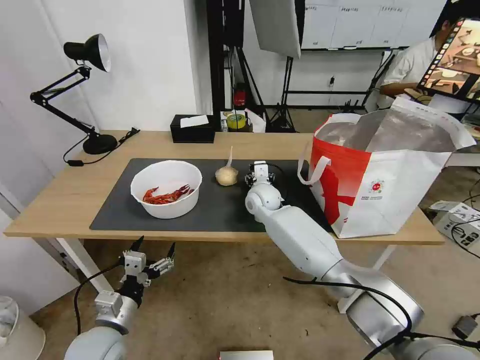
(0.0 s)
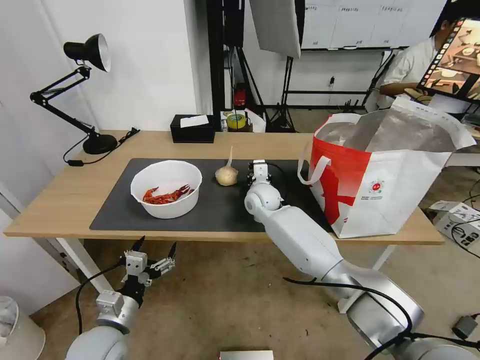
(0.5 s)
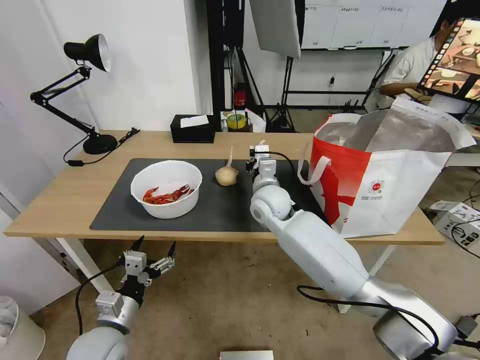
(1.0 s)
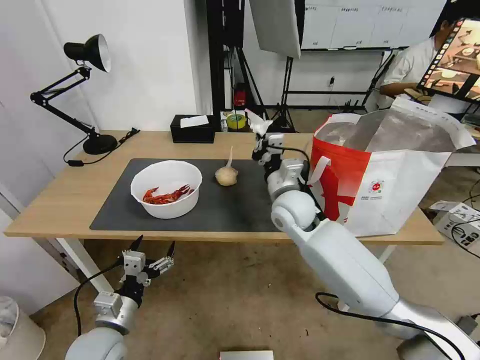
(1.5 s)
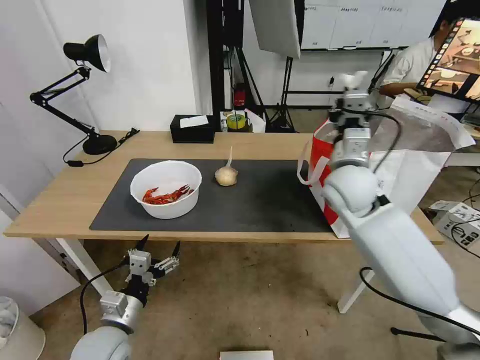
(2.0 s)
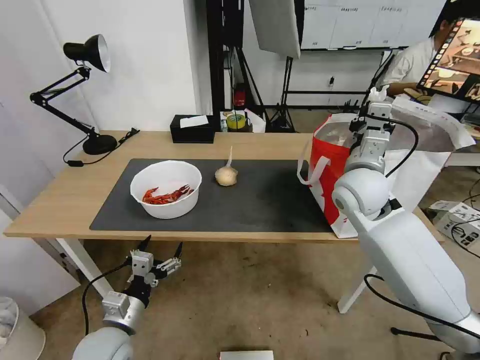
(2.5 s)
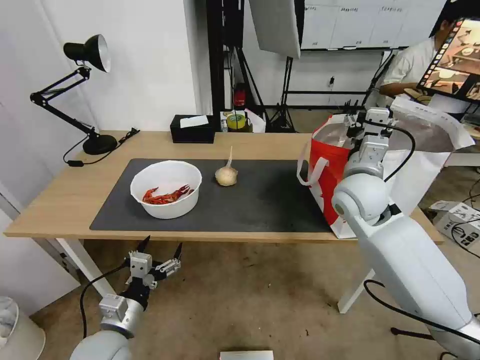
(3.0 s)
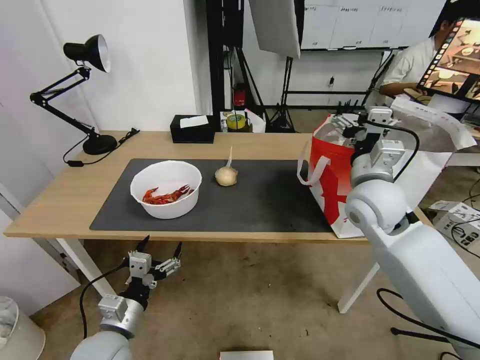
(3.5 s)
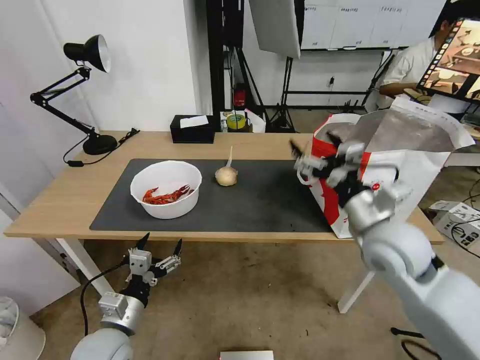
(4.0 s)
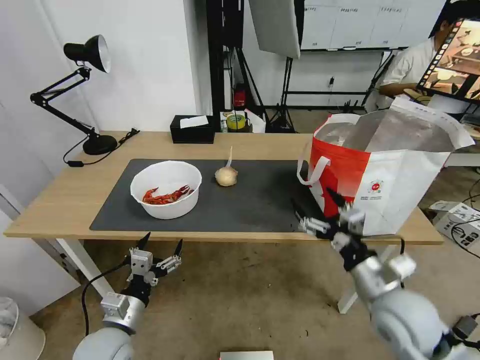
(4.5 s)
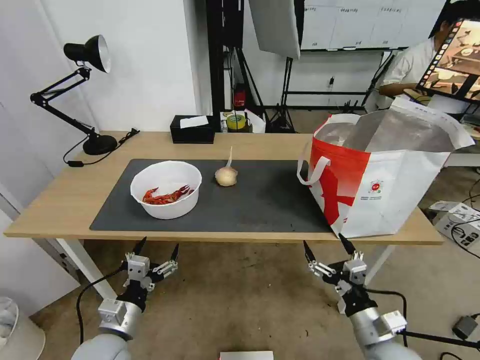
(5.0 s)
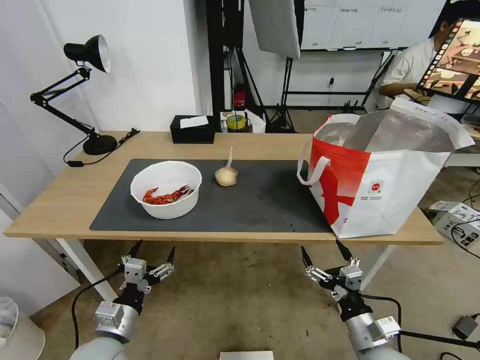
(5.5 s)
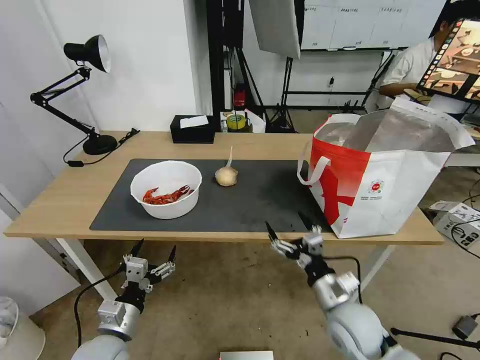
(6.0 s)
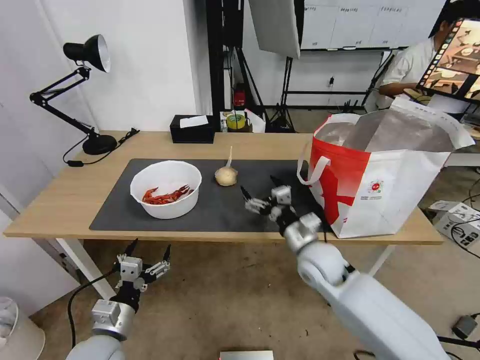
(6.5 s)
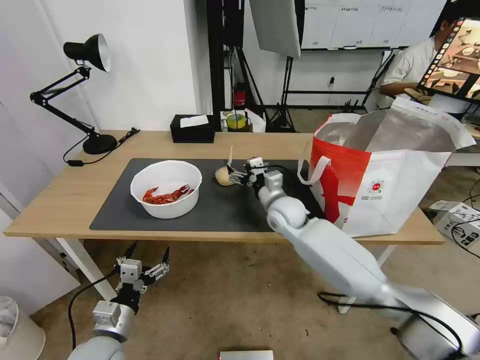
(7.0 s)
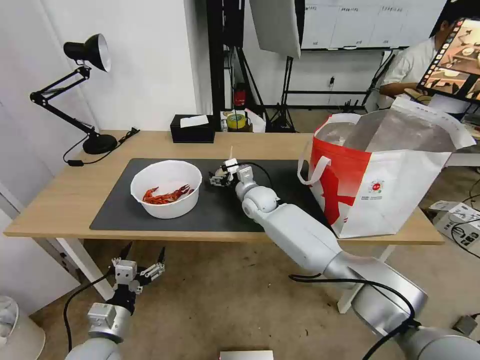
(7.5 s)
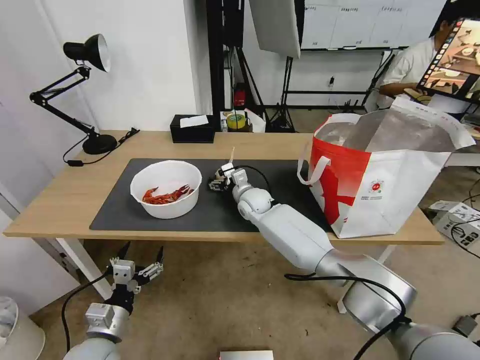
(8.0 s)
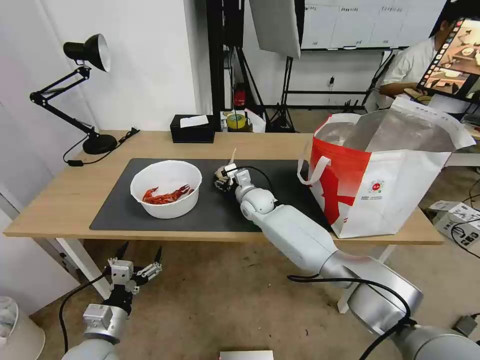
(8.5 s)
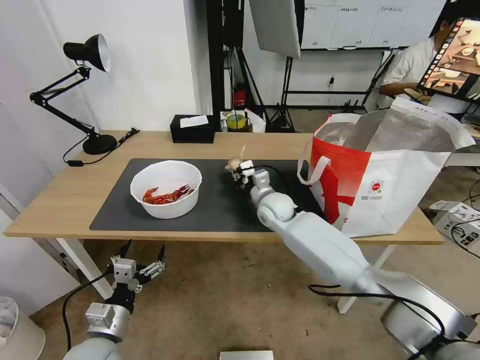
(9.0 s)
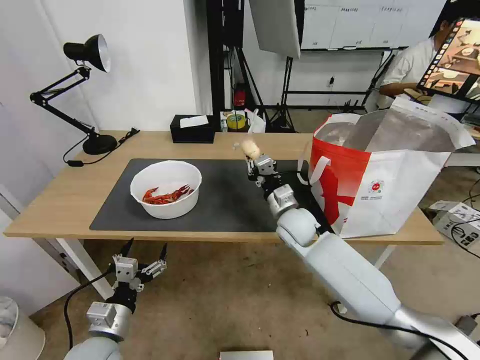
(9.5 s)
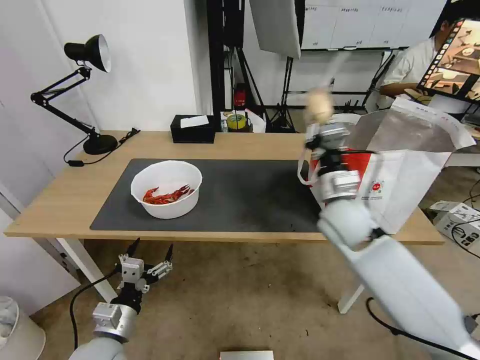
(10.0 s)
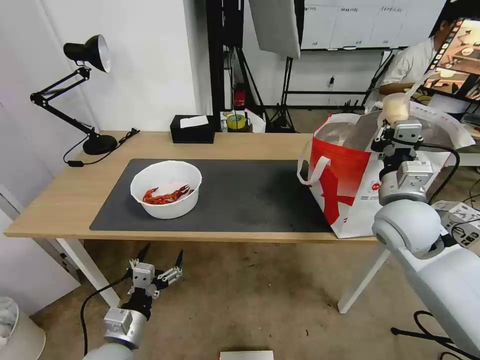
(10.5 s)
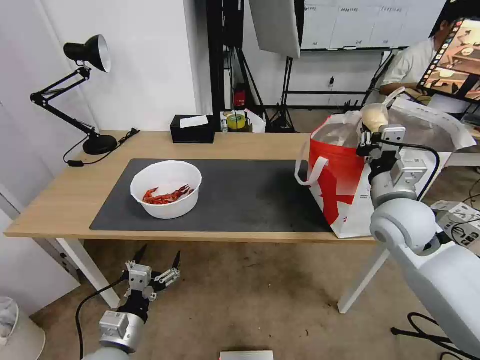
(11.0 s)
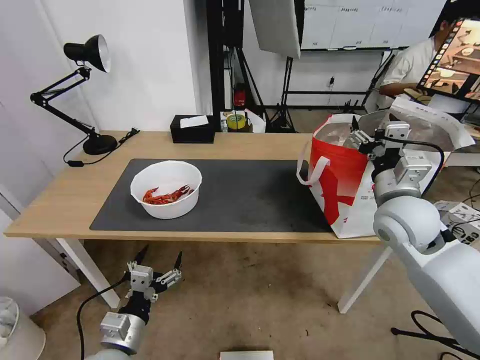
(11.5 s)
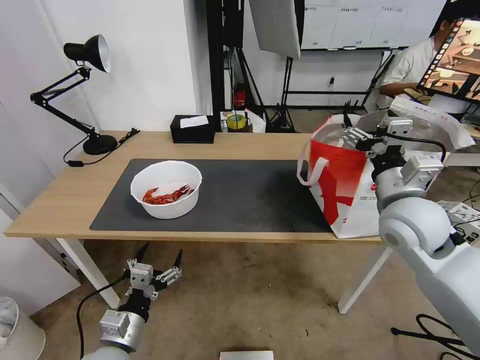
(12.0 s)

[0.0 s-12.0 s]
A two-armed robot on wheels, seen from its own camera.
Task of the whole recording: Pick up the trash from the table and place it into the takeout bag.
0.0 to 2.0 s: The right gripper shifts approximately 25 cm upward, to the right and backward, and closes.
2.0 to 4.0 s: The right gripper travels backward by roughly 10 cm, and opens up.
4.0 to 6.0 s: The right gripper is displaced downward and backward by roughly 20 cm.
6.0 to 8.0 s: The right gripper travels forward and to the left by roughly 40 cm.
8.0 to 10.0 s: The right gripper goes approximately 25 cm to the right, backward and upward, and closes.
10.0 to 12.0 s: The right gripper travels to the right by approximately 10 cm, and opens its fingers.

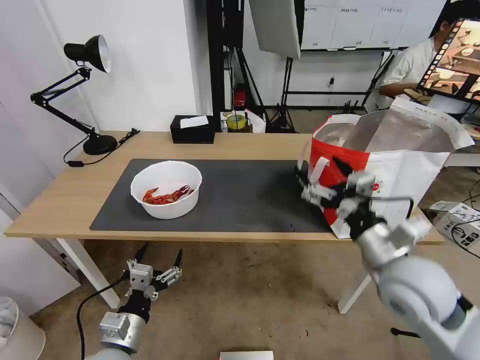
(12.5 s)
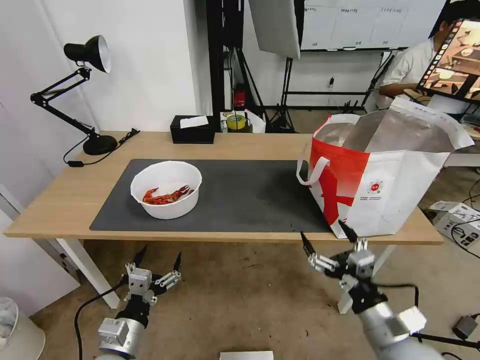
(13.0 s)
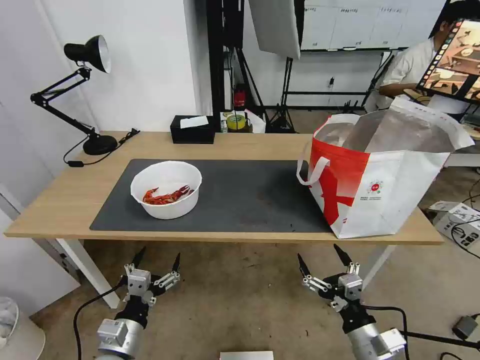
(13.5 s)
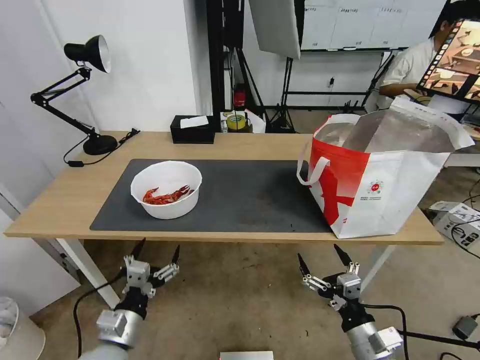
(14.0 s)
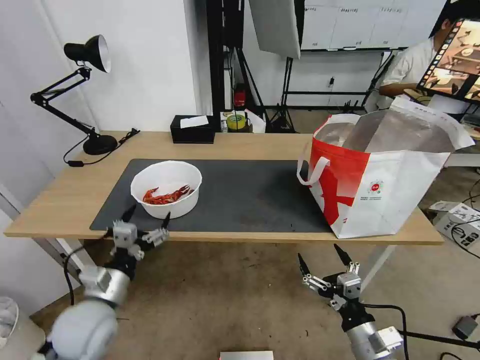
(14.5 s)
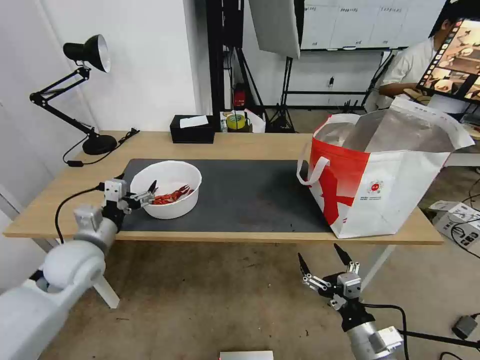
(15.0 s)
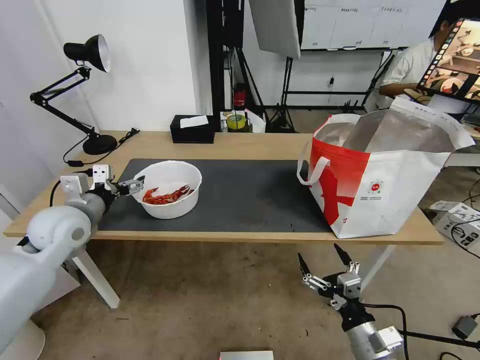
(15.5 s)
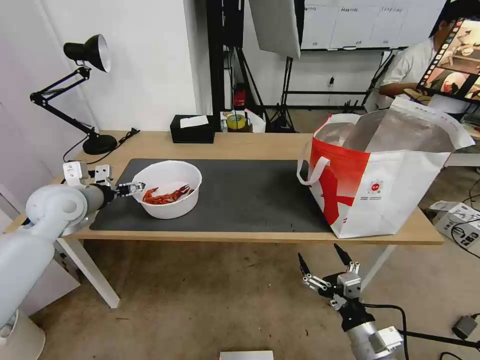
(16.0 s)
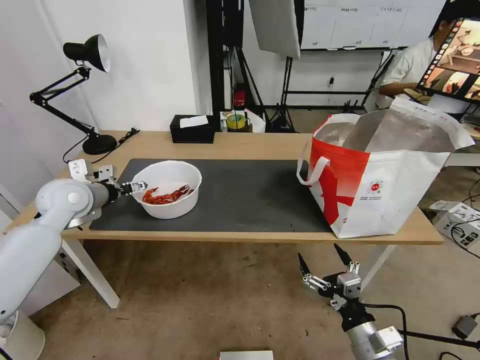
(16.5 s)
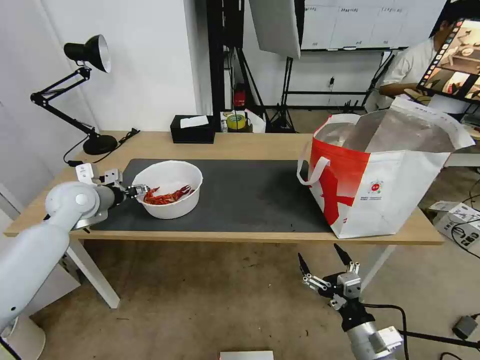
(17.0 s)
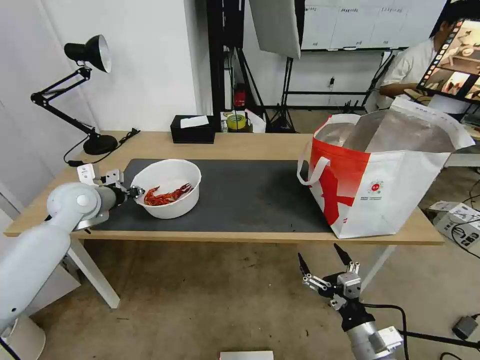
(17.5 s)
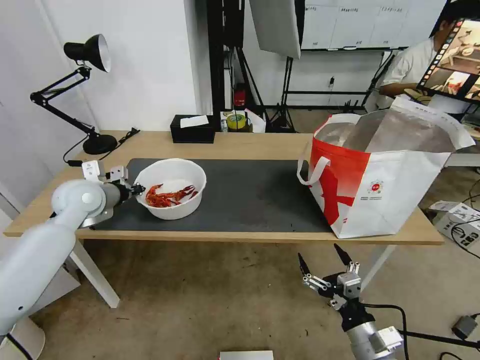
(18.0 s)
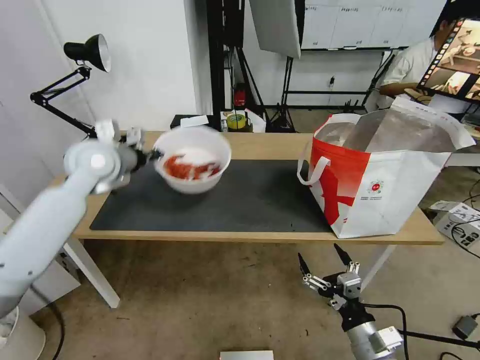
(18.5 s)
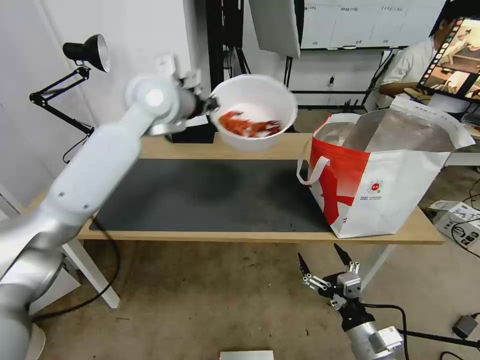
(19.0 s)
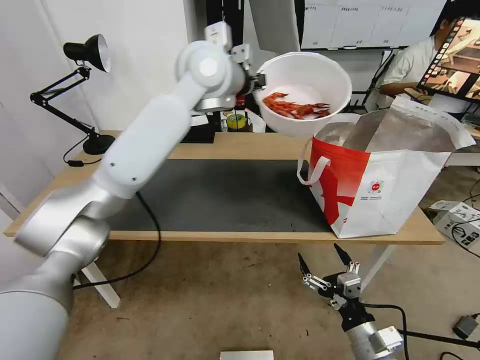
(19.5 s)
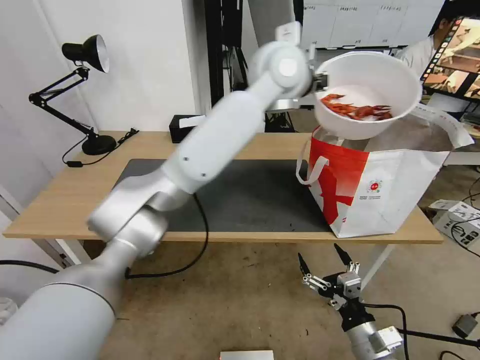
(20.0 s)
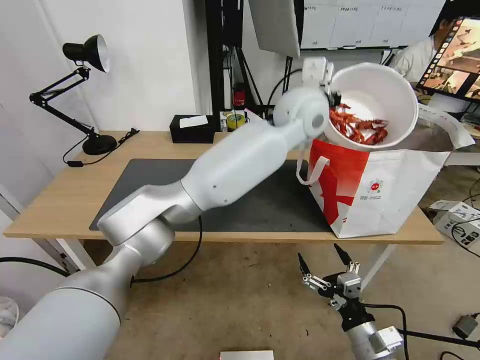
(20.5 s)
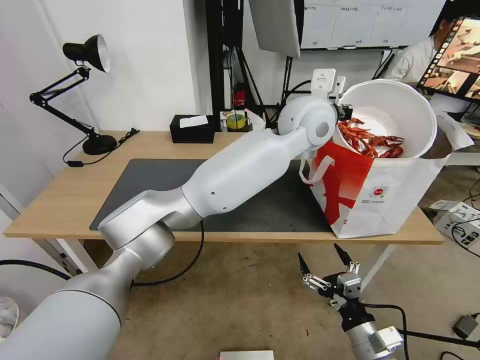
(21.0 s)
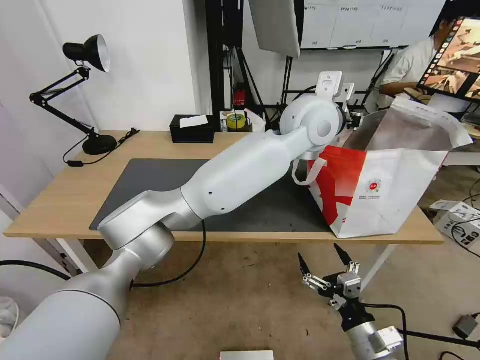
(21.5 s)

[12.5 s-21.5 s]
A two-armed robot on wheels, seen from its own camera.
Task of the whole recording: Pick up the trash from the table and place it into the takeout bag.
12.5 to 14.5 s: The right gripper heads downward and backward, covering approximately 20 cm. The left gripper goes roughly 10 cm forward and upward.
14.5 to 17.0 s: The left gripper moves forward and upward, some 25 cm.
17.0 to 19.5 s: The left gripper heads to the right and upward, covering some 40 cm, and closes.
19.5 to 21.5 s: The left gripper travels to the right by about 20 cm, and opens up.

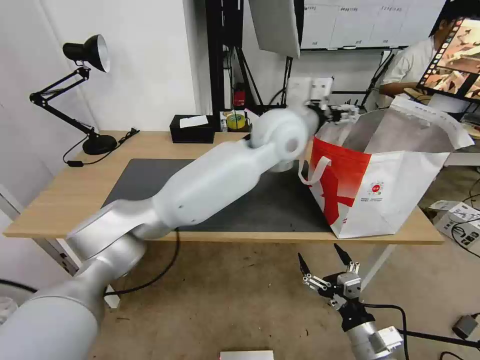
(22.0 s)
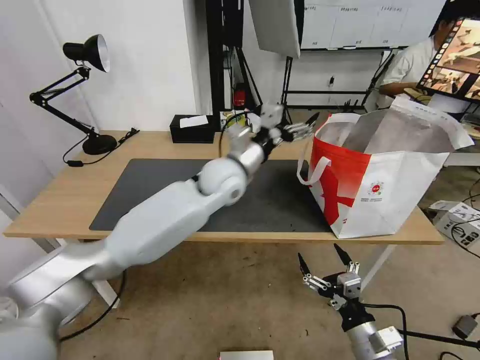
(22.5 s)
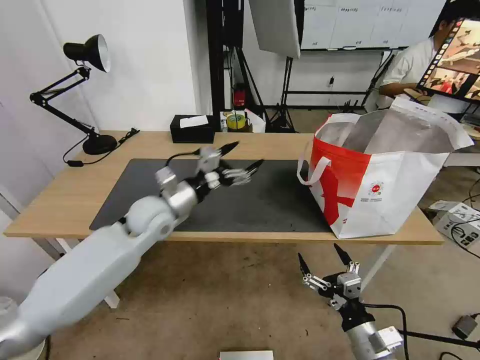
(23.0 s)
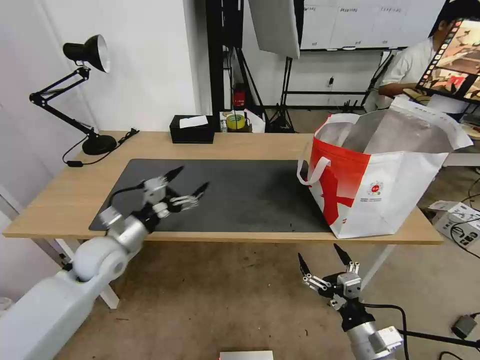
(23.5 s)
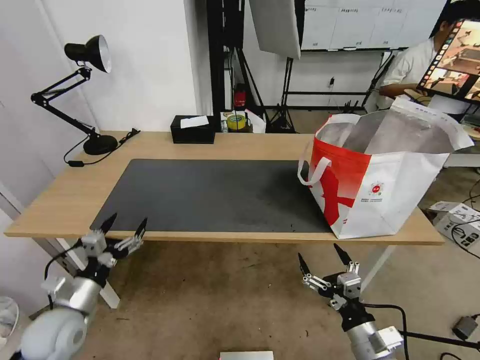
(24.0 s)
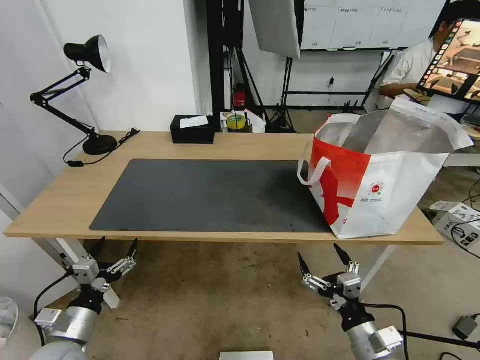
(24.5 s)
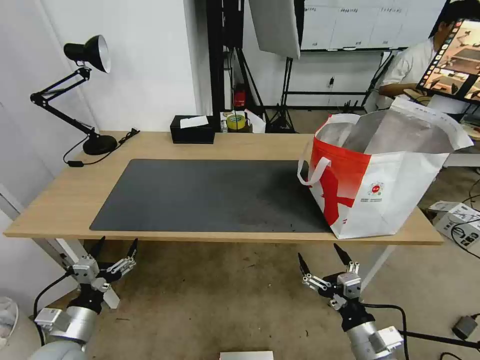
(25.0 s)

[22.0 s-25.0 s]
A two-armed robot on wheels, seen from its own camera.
Task of the whole recording: Pick up the trash from the table and place it into the takeout bag.
22.0 to 23.5 s: The left gripper travels to the left and downward by approximately 40 cm.
23.5 to 25.0 s: The left gripper goes roughly 20 cm backward and downward.

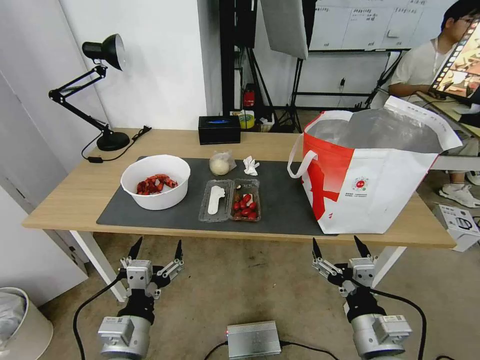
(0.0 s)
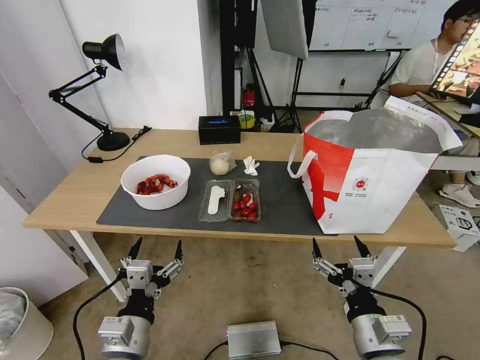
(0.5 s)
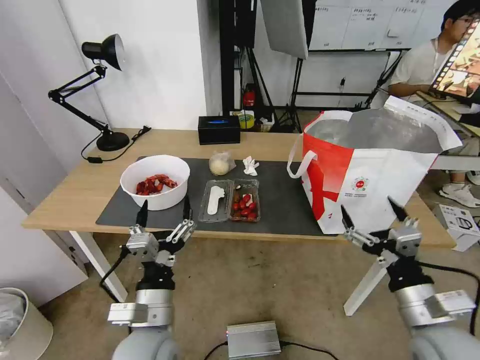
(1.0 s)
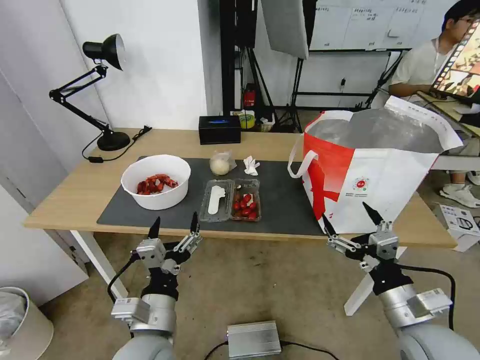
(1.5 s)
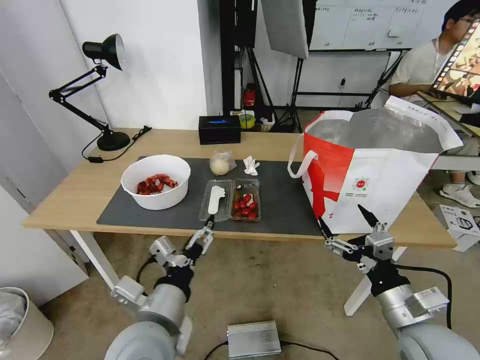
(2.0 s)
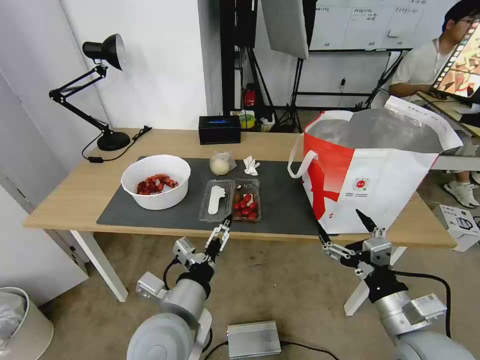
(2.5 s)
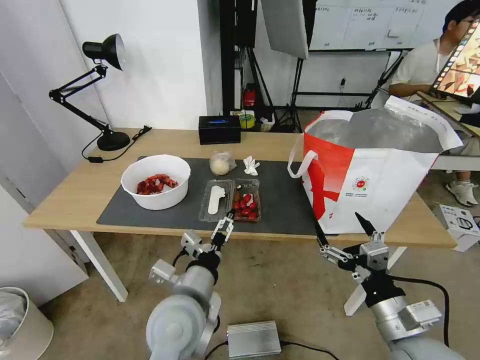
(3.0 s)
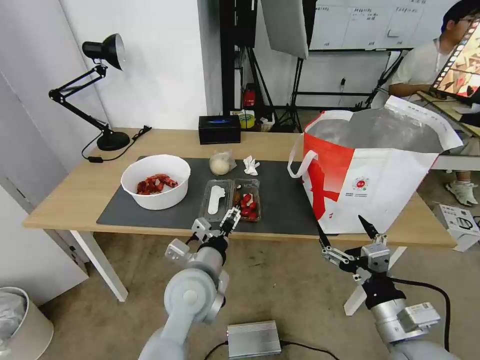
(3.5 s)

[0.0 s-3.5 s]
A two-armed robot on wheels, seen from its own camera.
Task of the whole recording: Pick up the trash from the table and place it into the takeout bag.
2.0 to 3.5 s: The left gripper heads forward and to the right, covering approximately 10 cm.
